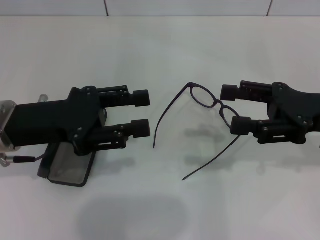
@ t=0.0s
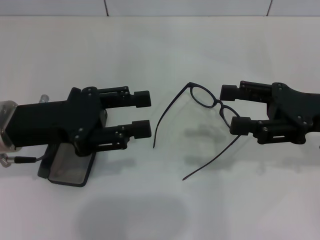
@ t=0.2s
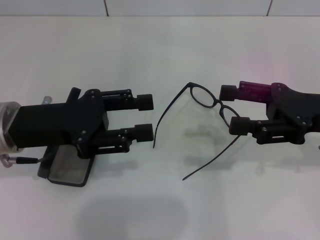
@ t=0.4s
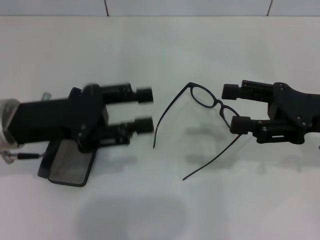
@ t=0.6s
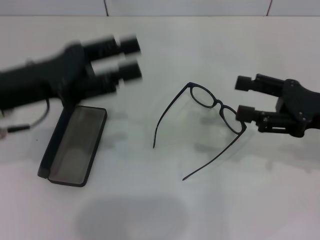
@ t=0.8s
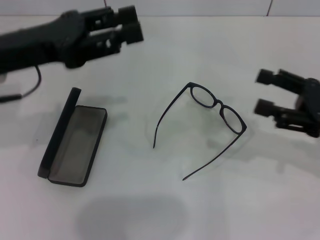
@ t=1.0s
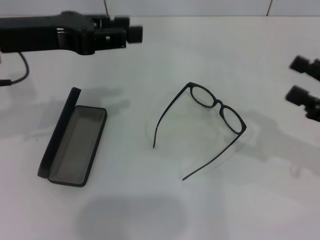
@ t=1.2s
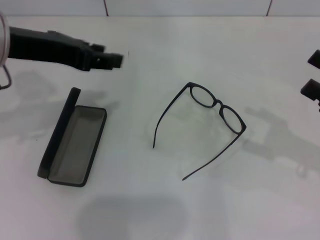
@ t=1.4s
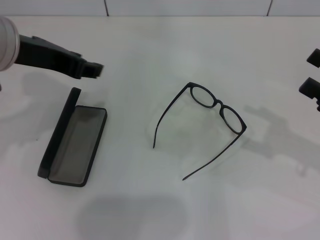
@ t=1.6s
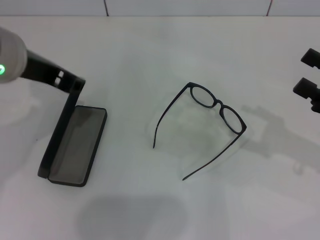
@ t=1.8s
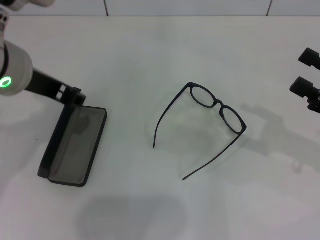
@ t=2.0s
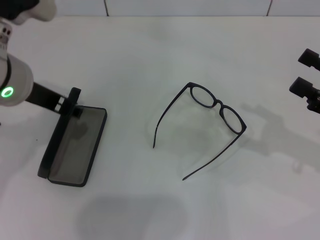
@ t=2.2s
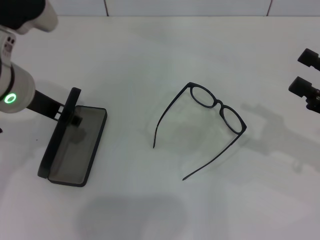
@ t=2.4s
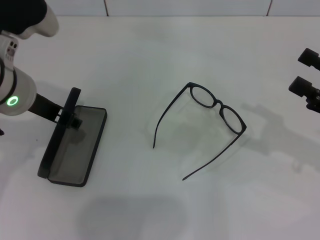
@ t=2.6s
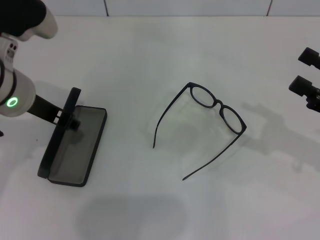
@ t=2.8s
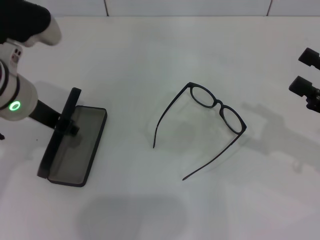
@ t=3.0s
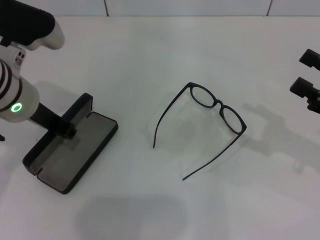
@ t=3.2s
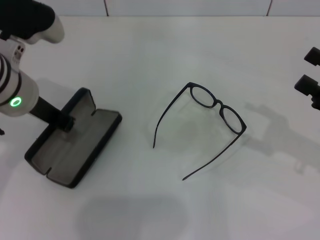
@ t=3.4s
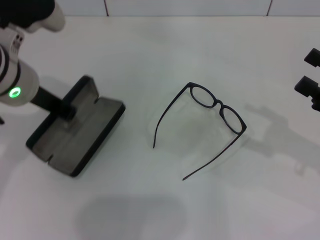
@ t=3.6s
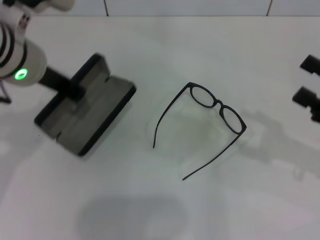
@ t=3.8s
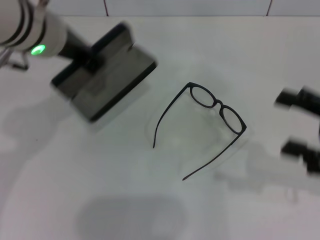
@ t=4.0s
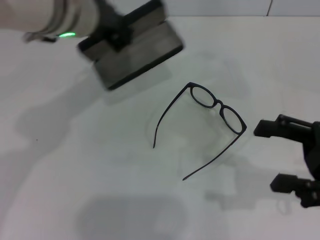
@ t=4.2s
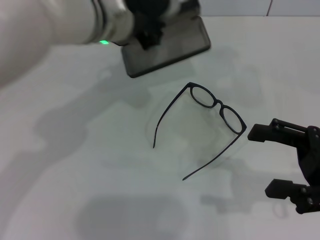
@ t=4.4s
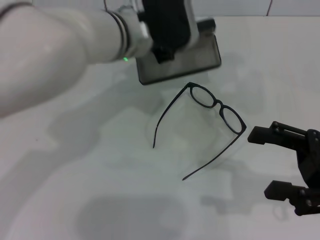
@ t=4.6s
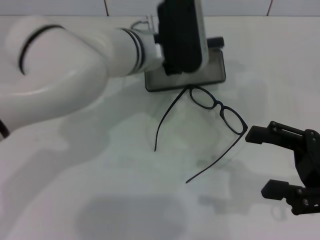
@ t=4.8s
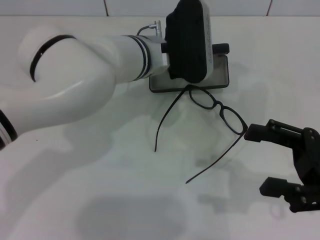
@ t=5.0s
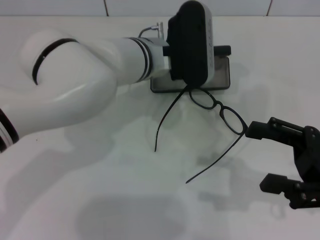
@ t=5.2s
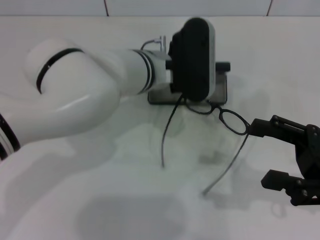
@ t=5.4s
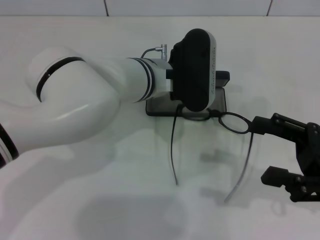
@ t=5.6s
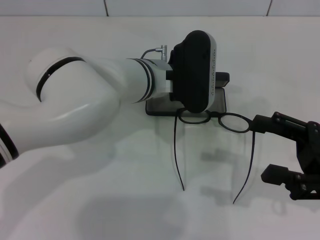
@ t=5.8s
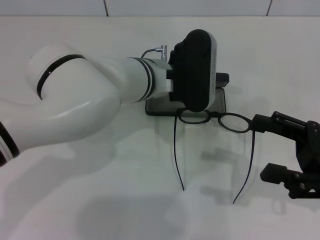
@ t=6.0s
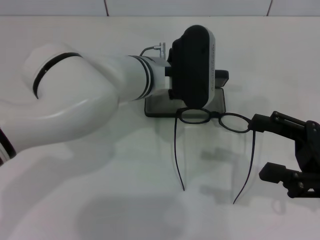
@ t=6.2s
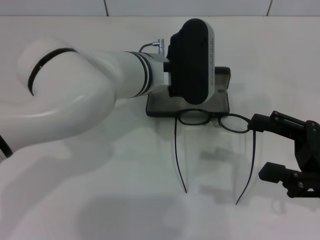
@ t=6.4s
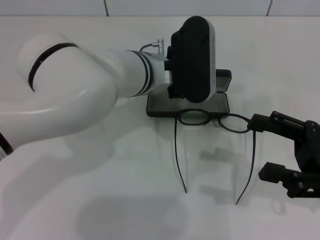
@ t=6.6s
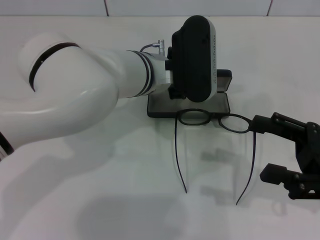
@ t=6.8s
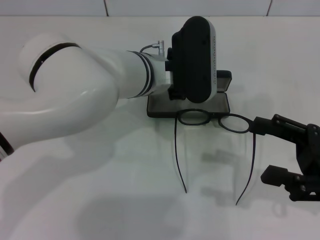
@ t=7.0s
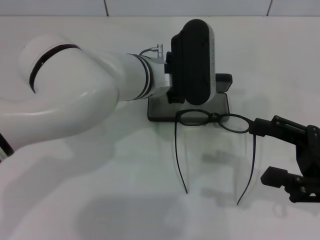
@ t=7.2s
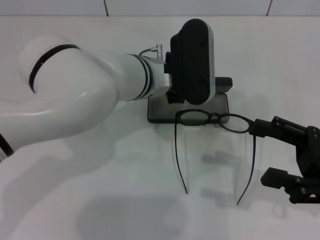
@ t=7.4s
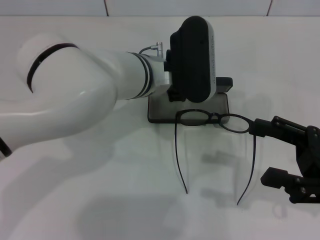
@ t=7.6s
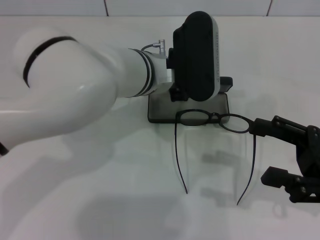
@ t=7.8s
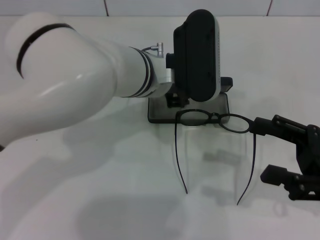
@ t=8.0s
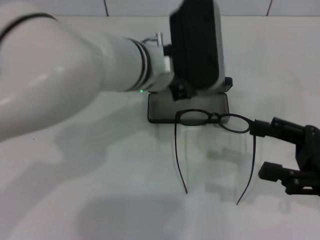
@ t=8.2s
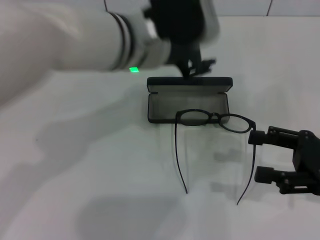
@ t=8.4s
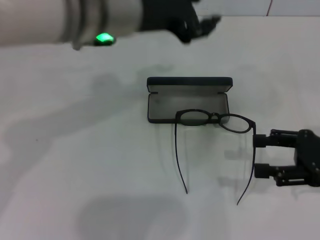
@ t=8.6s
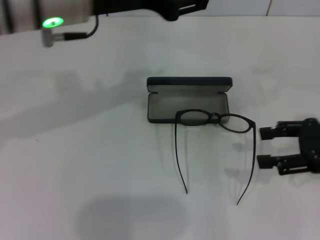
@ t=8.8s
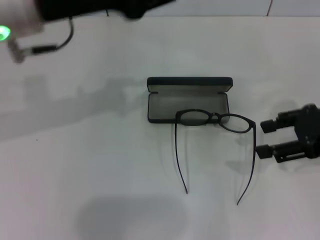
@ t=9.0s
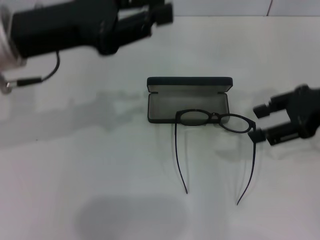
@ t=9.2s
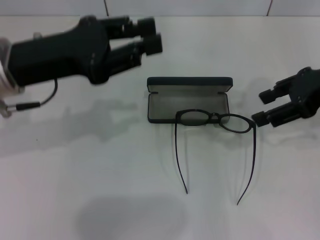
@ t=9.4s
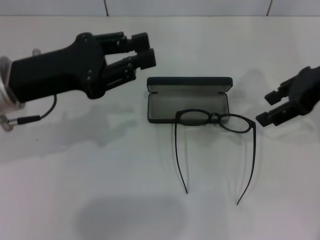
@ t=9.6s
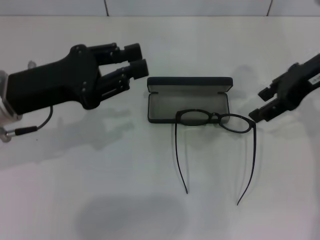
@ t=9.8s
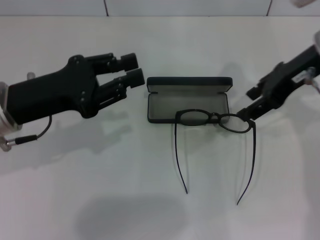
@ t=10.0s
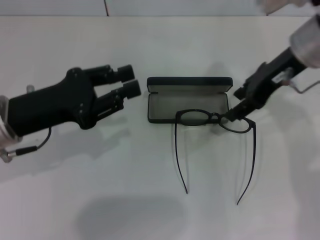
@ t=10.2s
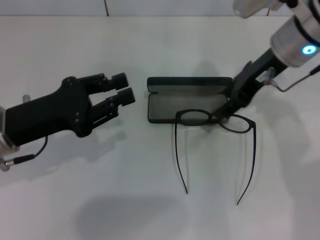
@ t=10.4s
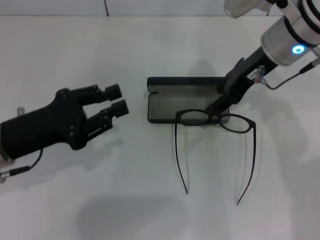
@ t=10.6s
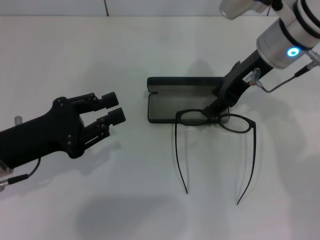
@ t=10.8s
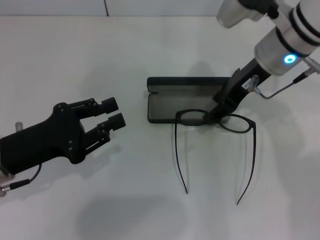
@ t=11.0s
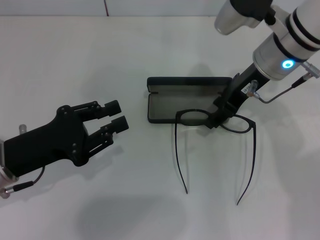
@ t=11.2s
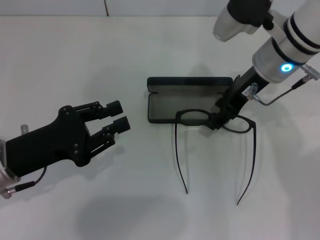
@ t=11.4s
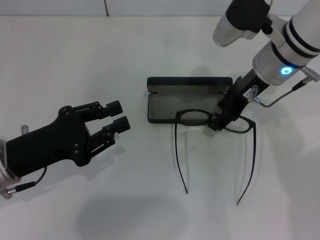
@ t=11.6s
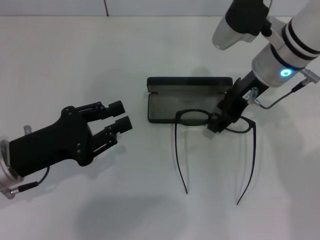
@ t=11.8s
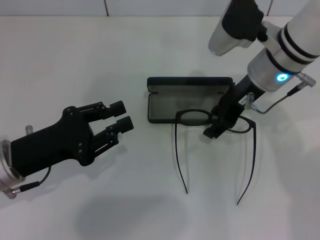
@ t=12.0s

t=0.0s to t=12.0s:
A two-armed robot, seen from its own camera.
Step, t=0.0s to t=3.0s: Grab the glasses case with your left hand.
Step, t=3.2s to t=8.0s: Place the glasses case in the center of the table with your left hand.
t=0.0s to t=1.6s: The left gripper is displaced upward by some 10 cm. Meanwhile the right gripper shifts approximately 5 cm to the right.
t=1.6s to t=3.0s: The left gripper travels downward by roughly 10 cm.
t=3.0s to t=4.4s: The right gripper ends up roughly 5 cm from where it was, while the left gripper heads to the right and forward, covering some 10 cm.
t=4.4s to t=6.0s: The left gripper is displaced downward by some 10 cm.
t=6.0s to t=7.6s: The left gripper opens.
t=7.6s to t=9.0s: The right gripper moves upward and forward, some 10 cm. Meanwhile the left gripper shifts approximately 20 cm to the left and upward.
t=9.0s to t=10.4s: The right gripper travels to the left and forward by some 15 cm. The left gripper heads downward, backward and to the left, covering roughly 15 cm.

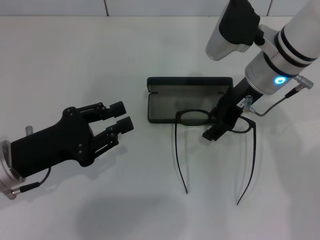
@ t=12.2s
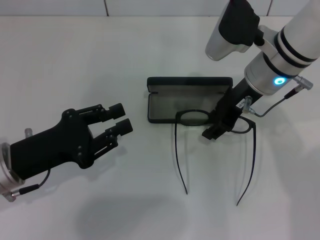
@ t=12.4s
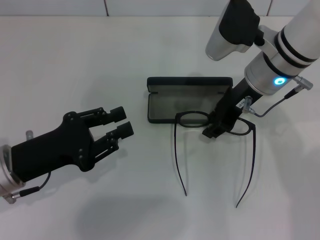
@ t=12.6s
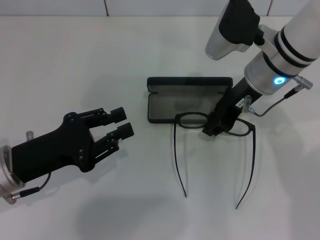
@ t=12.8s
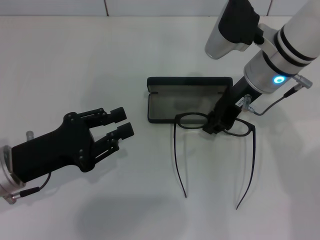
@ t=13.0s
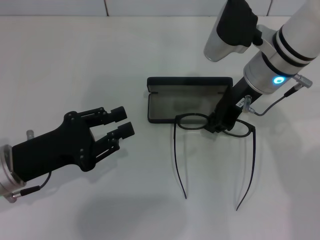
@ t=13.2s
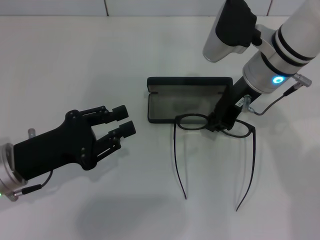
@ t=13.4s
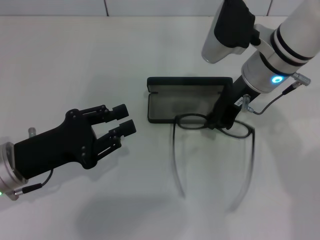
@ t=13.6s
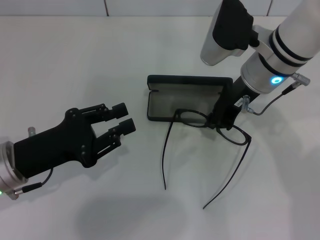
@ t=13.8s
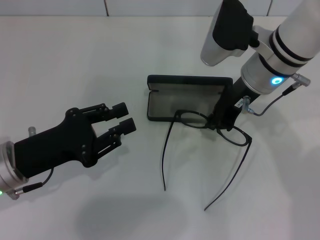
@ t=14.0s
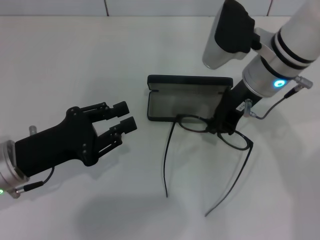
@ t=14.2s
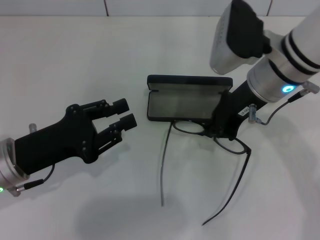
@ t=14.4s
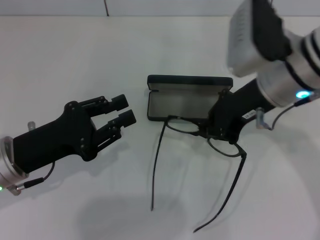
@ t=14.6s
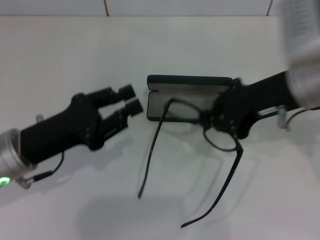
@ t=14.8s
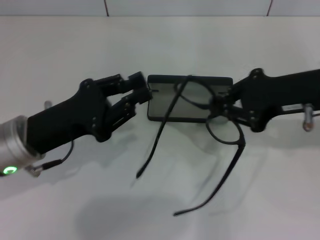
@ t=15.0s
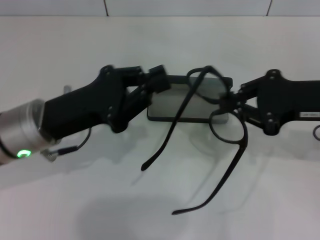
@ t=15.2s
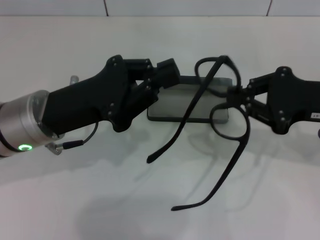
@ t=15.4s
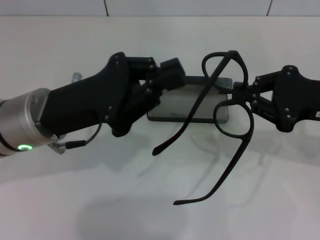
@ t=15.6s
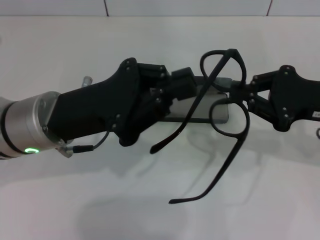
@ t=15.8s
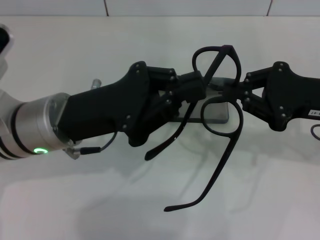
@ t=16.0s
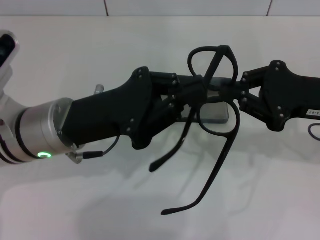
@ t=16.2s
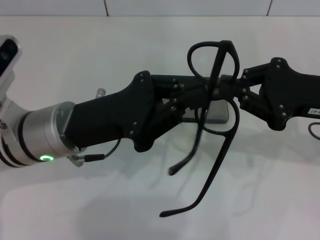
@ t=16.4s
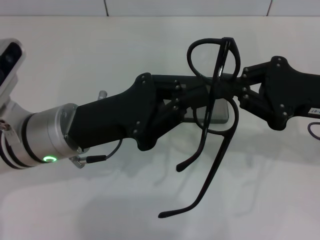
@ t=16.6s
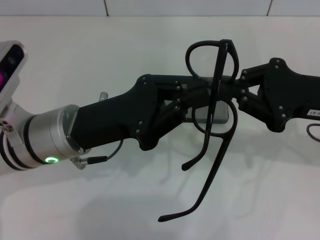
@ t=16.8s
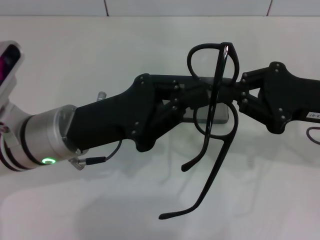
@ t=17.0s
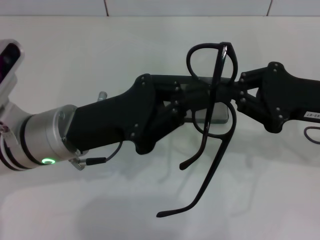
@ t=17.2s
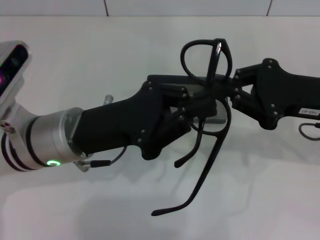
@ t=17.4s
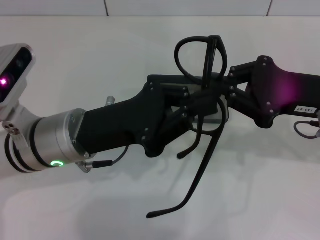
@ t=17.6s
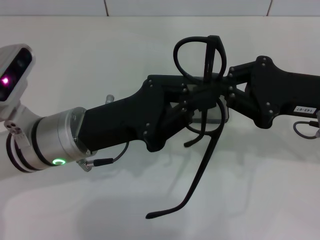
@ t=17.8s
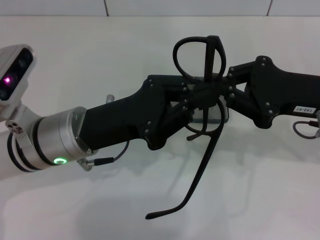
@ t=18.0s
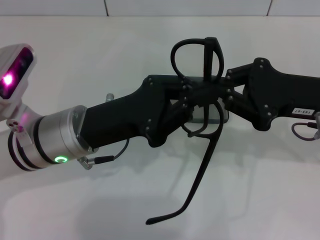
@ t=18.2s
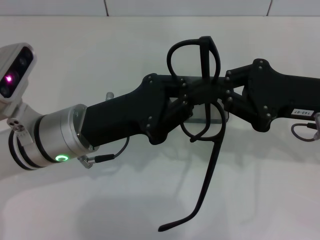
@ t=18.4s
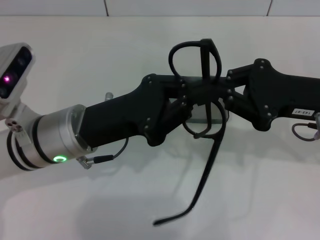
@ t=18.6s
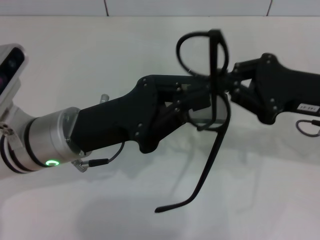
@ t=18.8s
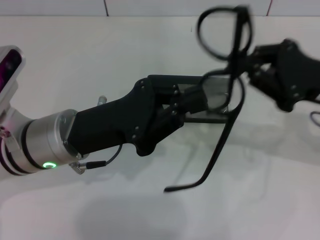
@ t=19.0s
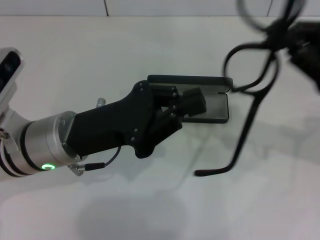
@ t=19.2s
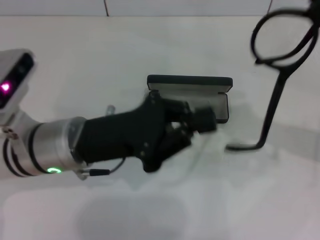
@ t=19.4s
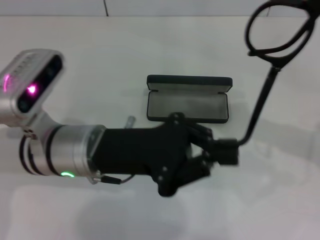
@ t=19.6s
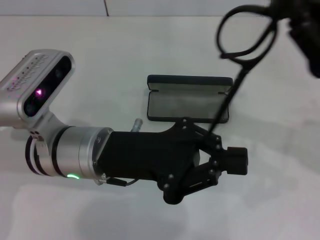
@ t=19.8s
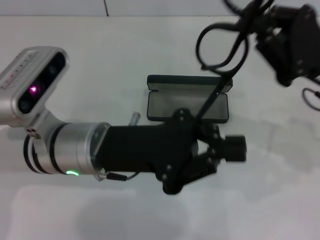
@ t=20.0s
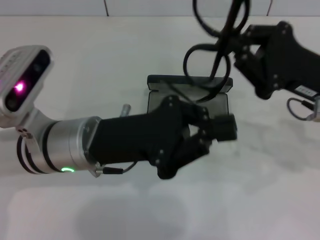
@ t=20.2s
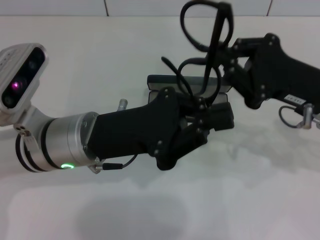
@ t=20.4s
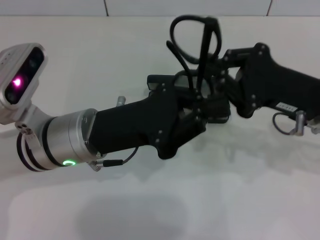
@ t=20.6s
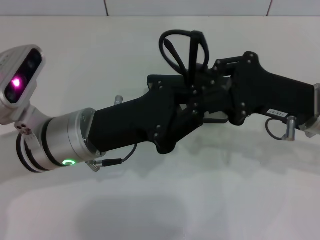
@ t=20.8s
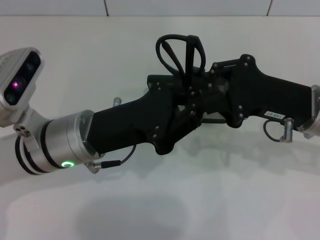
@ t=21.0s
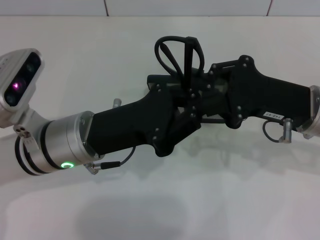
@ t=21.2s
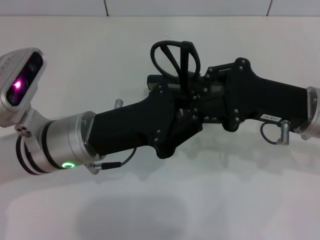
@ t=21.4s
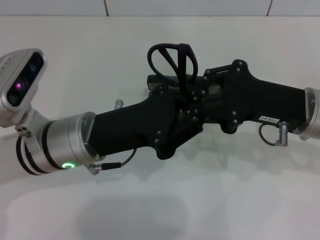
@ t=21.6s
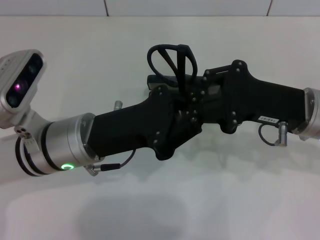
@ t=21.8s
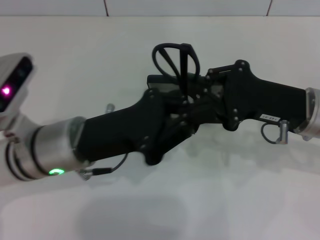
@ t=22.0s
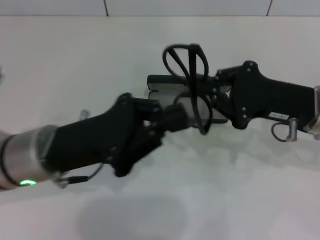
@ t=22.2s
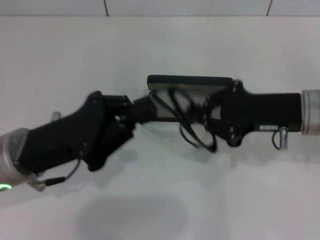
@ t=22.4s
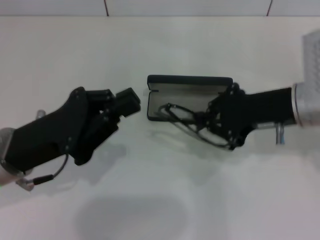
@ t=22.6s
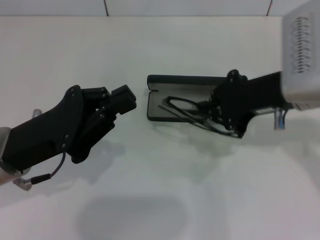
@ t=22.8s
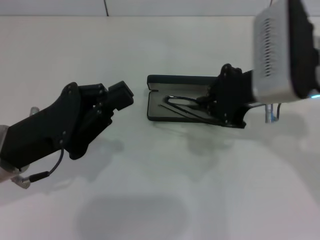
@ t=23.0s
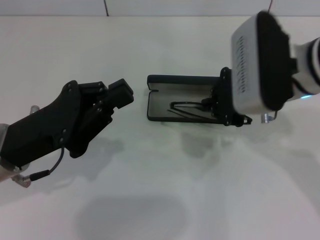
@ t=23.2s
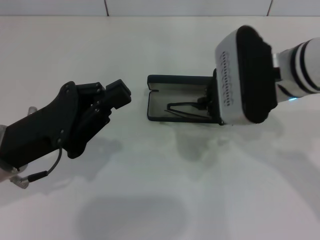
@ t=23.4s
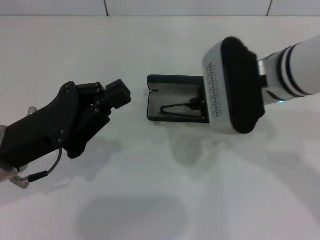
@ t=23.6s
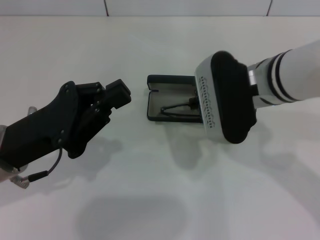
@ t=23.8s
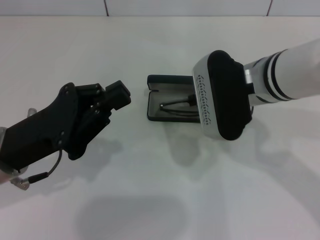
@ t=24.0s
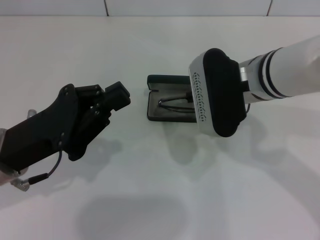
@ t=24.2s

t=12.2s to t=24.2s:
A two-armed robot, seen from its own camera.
Step, t=13.8s to t=21.8s: Fold the frame with your left hand.
t=12.2s to t=13.8s: The right gripper closes.
t=13.8s to t=15.2s: The left gripper moves approximately 5 cm. The right gripper shifts about 15 cm to the right and backward.
t=16.6s to t=18.2s: The grippers make only small movements.
t=19.8s to t=21.2s: The right gripper shifts by about 5 cm.
t=21.2s to t=22.6s: The left gripper is displaced to the left by approximately 10 cm.
t=22.6s to t=24.2s: The right gripper moves to the left, roughly 10 cm.
